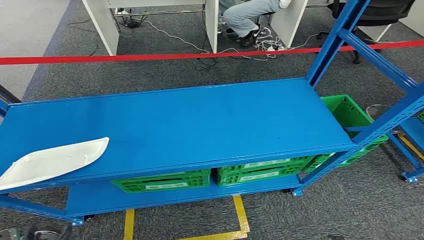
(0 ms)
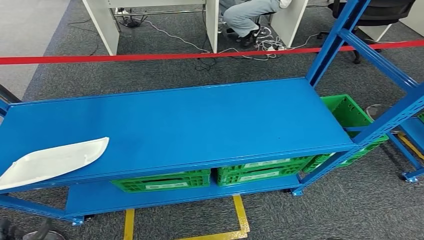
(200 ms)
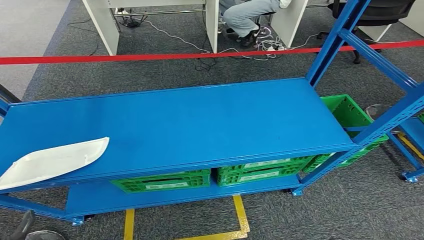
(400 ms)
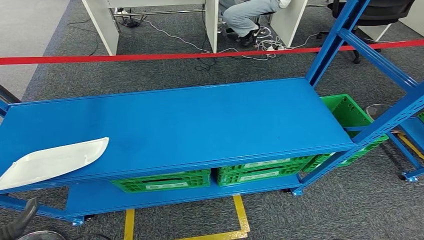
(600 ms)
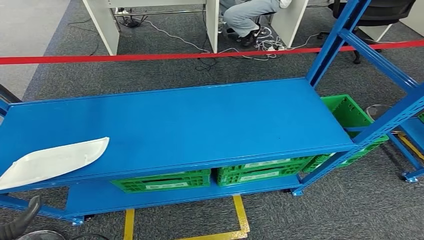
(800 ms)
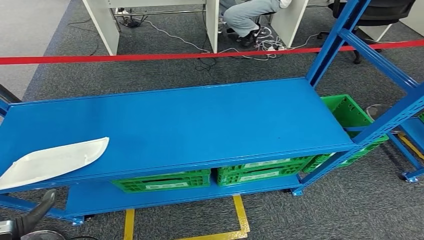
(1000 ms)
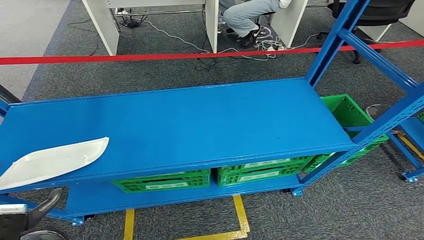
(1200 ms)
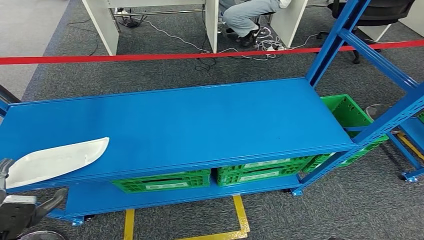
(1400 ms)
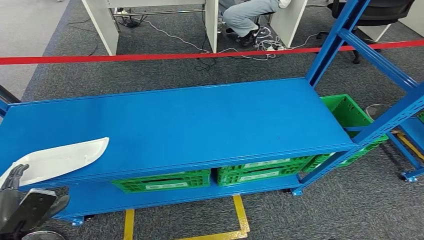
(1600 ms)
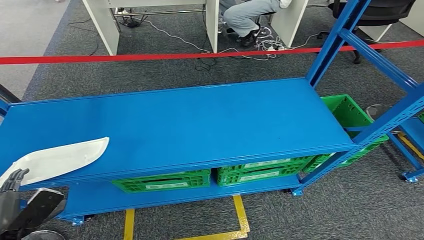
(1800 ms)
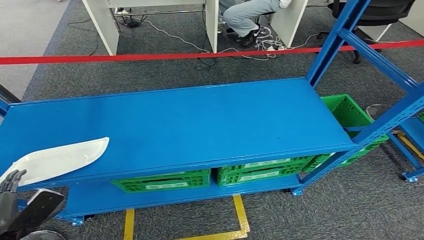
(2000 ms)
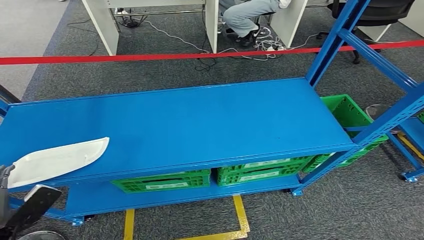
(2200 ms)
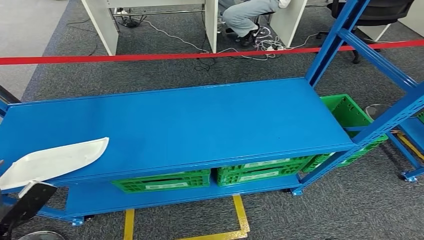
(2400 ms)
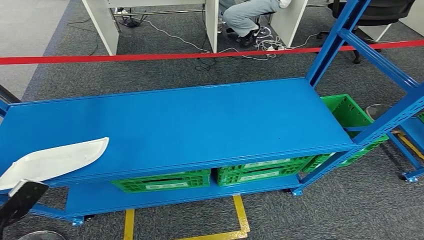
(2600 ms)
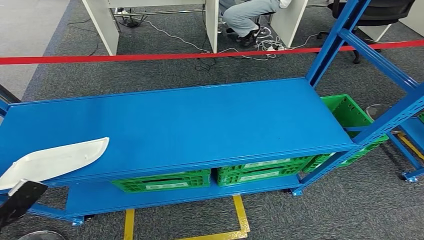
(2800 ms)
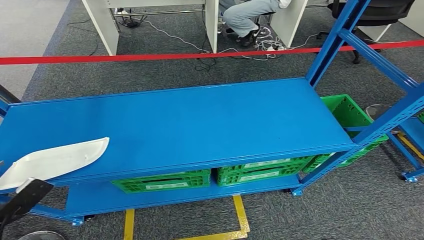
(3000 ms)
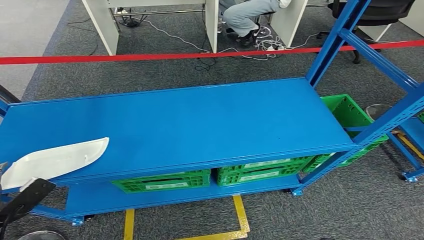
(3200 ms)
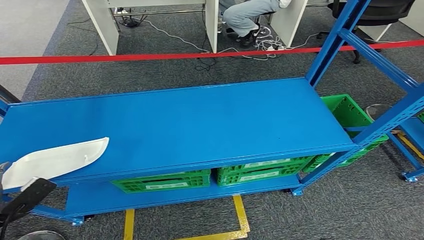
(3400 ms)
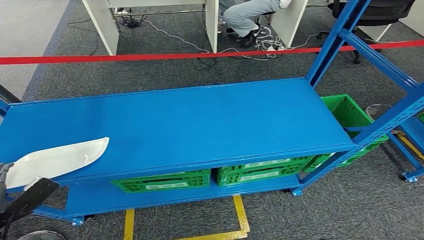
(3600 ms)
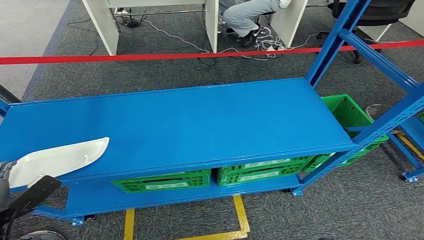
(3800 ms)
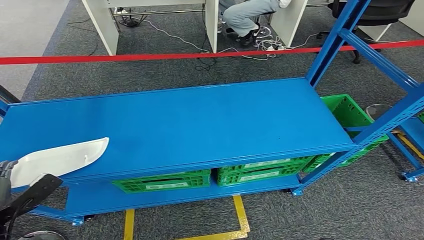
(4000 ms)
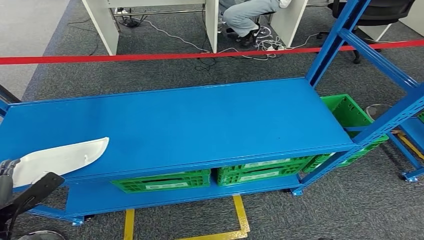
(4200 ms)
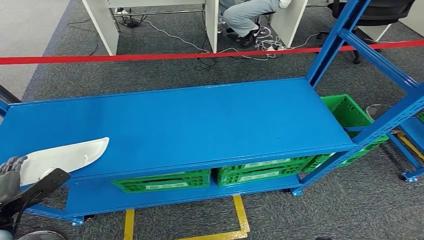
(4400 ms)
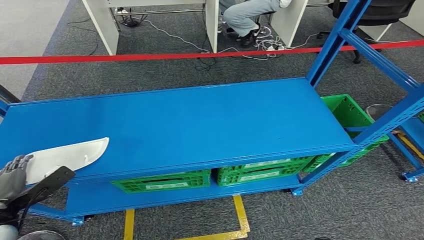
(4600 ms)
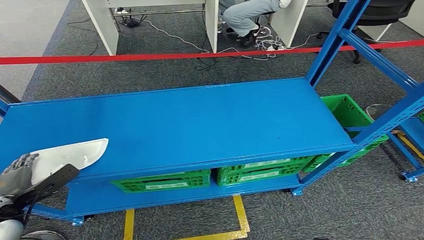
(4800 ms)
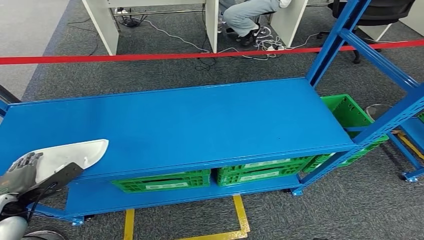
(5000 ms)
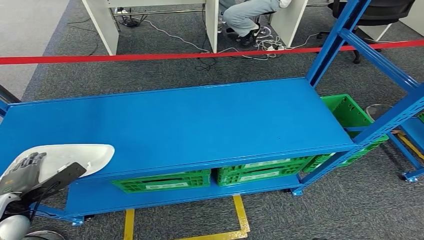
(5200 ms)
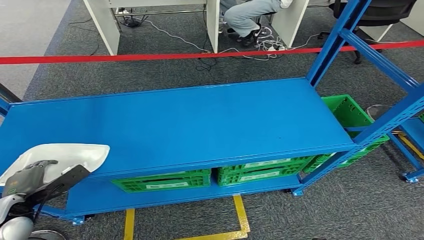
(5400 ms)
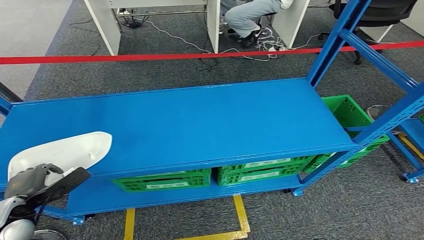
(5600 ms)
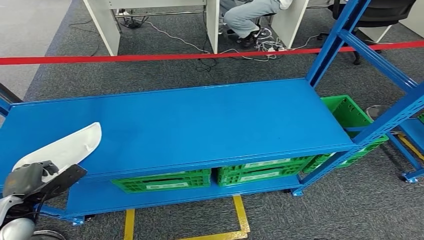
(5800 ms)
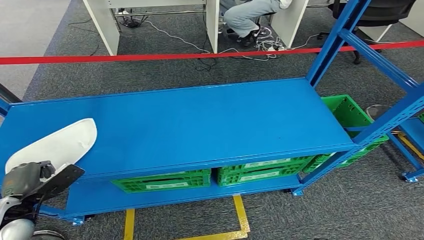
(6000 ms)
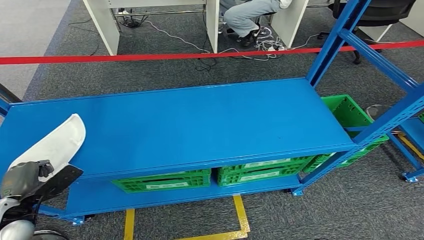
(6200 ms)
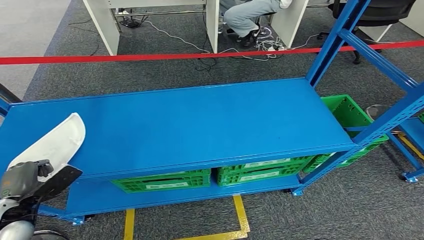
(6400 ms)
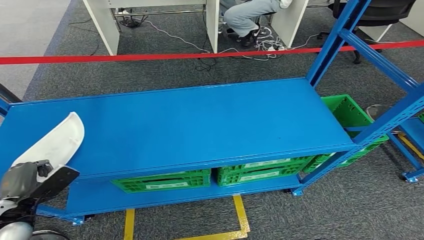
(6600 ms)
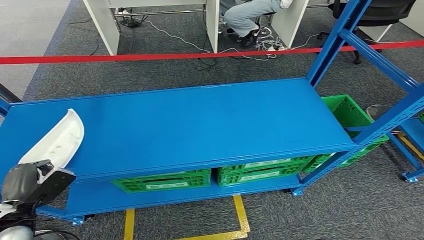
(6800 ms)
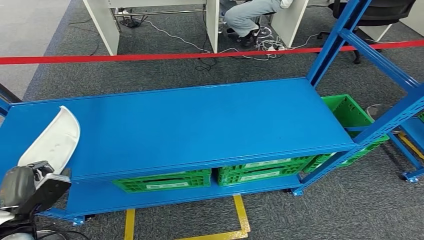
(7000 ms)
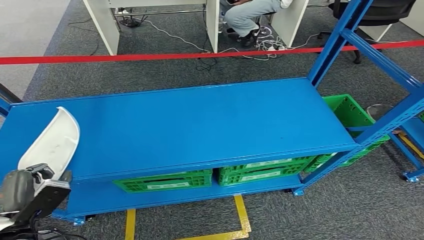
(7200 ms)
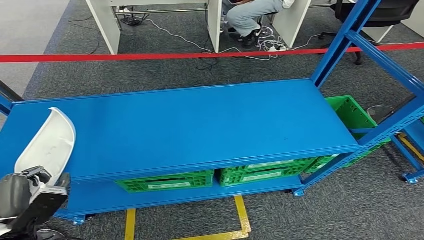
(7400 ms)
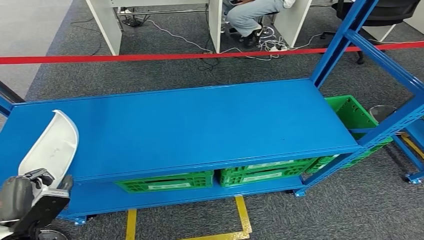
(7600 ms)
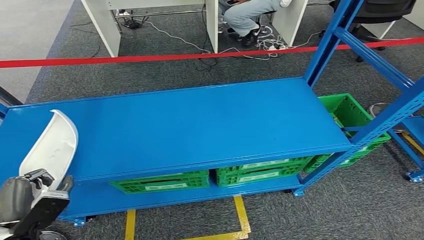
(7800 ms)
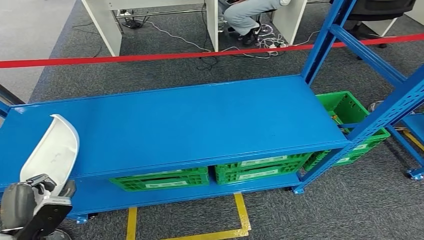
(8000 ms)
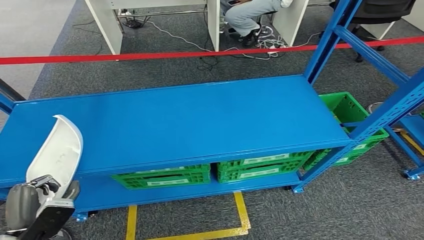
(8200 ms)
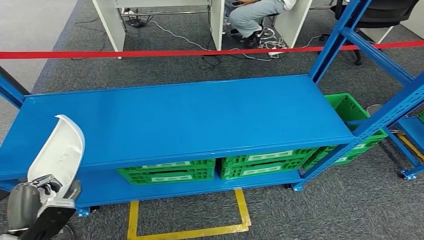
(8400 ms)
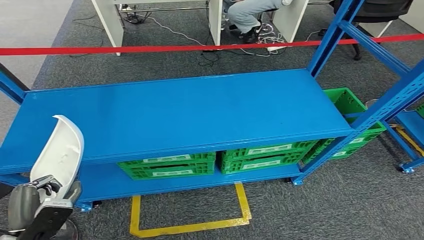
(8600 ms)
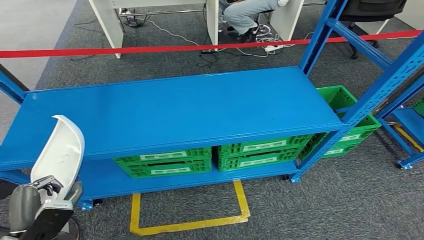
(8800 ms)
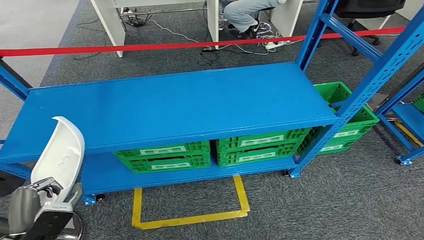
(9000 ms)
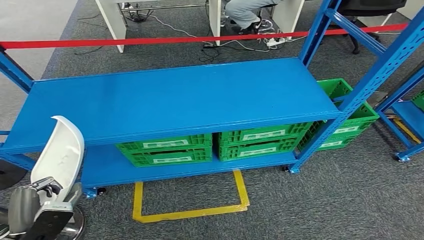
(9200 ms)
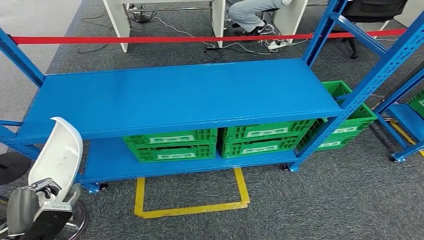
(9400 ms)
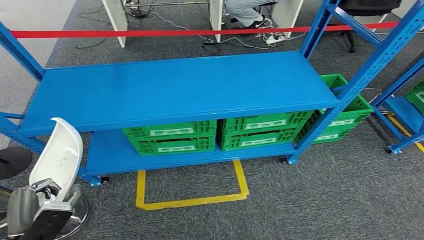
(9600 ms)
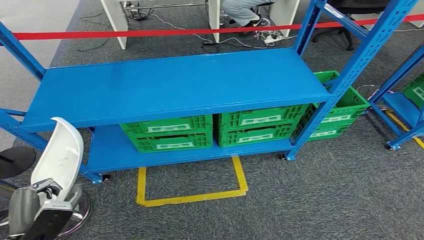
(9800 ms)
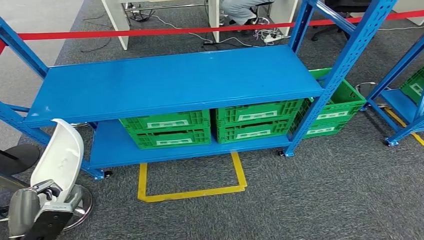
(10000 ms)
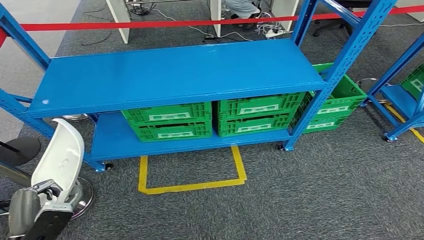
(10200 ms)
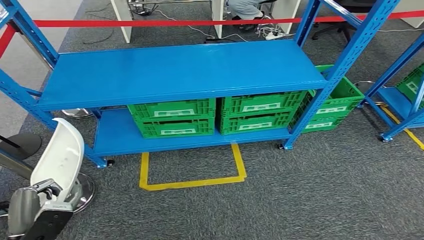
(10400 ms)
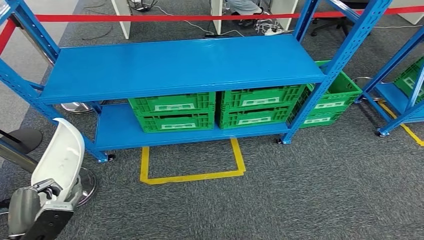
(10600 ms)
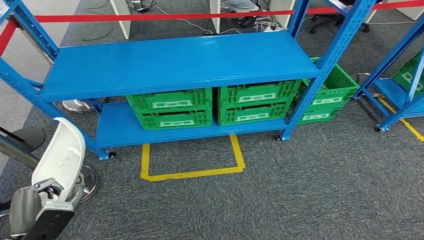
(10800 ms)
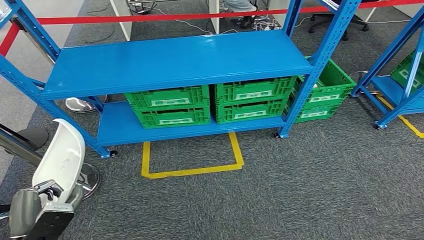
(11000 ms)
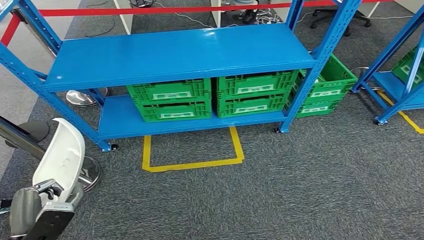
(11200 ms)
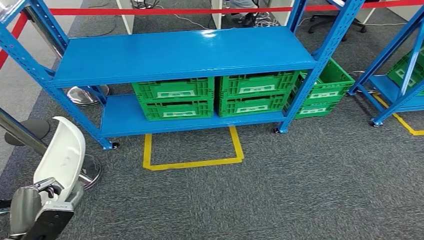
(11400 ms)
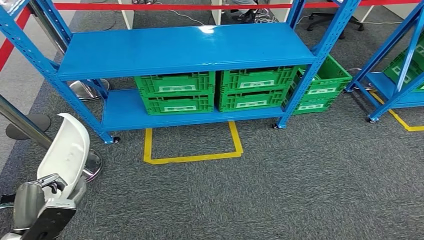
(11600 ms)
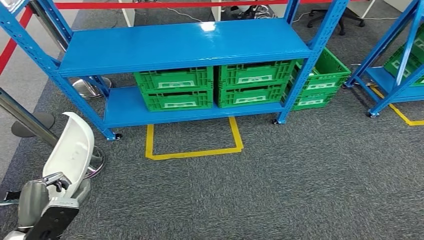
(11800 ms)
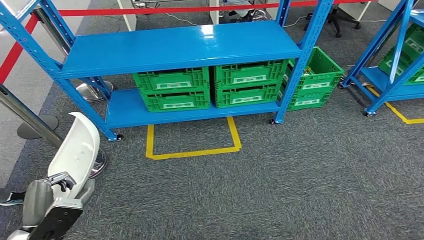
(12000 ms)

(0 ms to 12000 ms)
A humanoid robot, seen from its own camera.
Step, 0 ms - 8800 ms: Pick up the small component from the shelf.
3000 ms - 4400 ms: There are only small adjustments of the hands.
4400 ms - 6000 ms: The hands stay close to where they were, moving slightly.
6000 ms - 7600 ms: The left hand shifts roughly 5 cm backward.

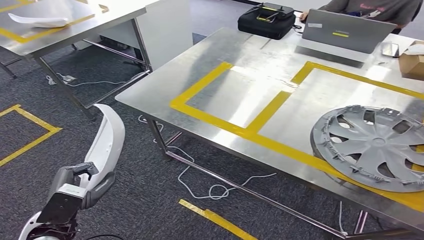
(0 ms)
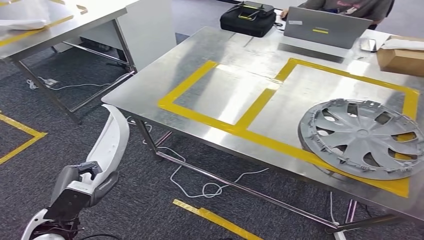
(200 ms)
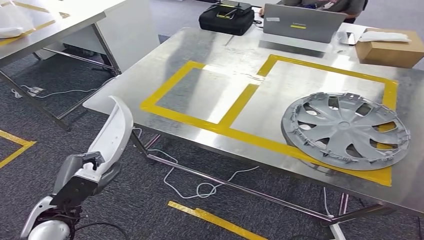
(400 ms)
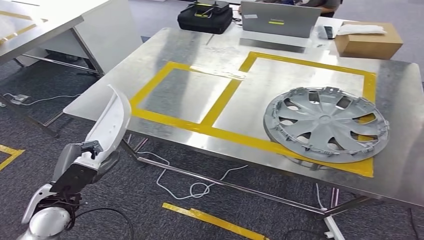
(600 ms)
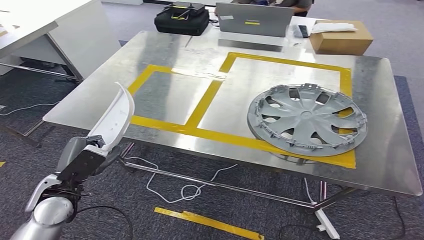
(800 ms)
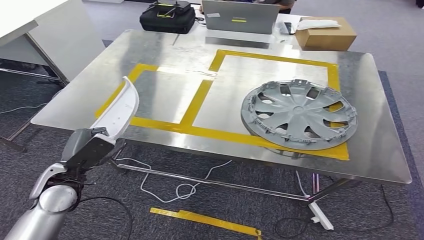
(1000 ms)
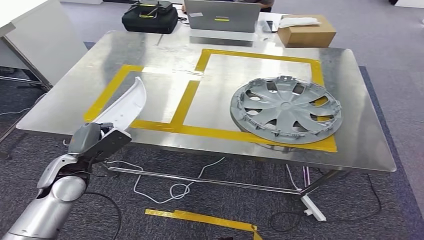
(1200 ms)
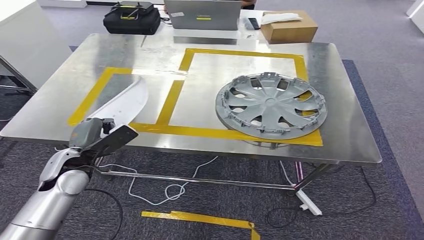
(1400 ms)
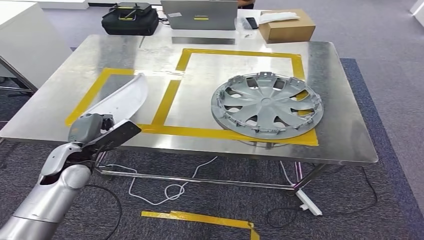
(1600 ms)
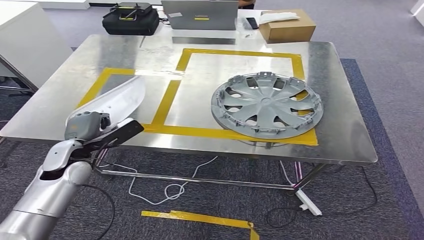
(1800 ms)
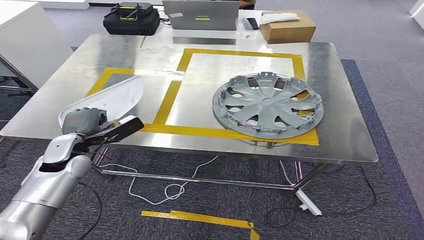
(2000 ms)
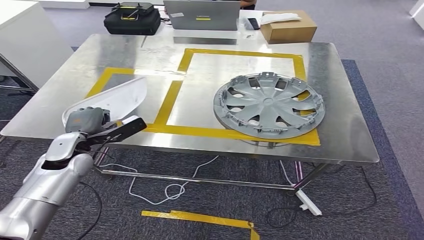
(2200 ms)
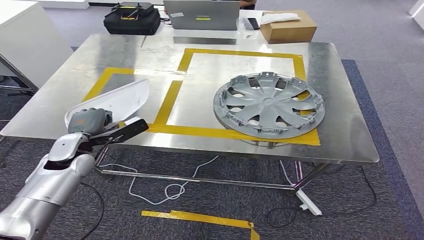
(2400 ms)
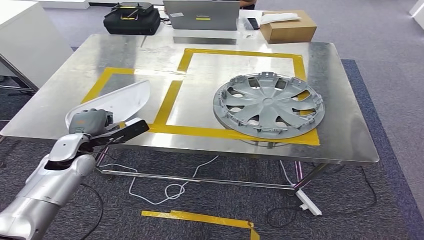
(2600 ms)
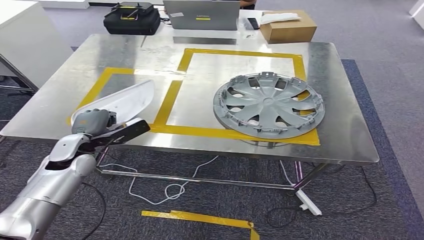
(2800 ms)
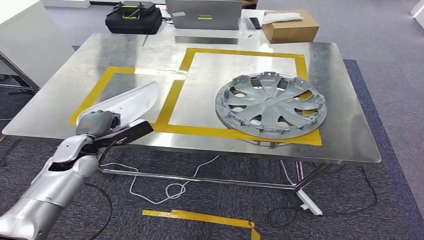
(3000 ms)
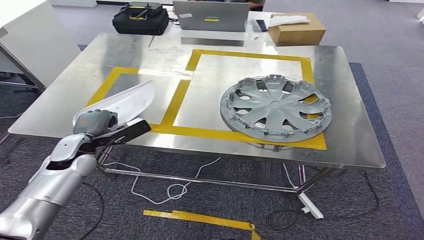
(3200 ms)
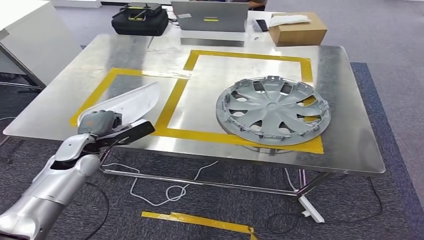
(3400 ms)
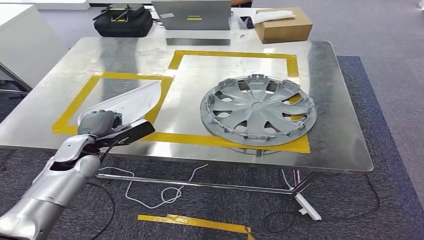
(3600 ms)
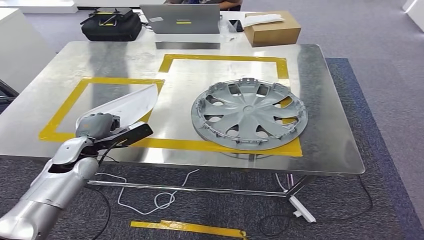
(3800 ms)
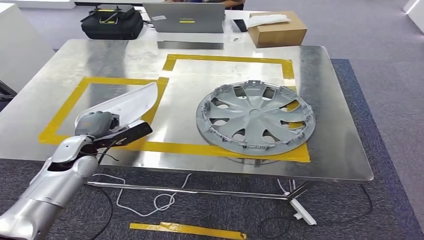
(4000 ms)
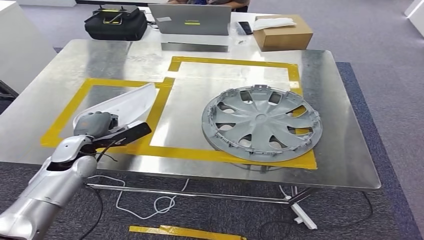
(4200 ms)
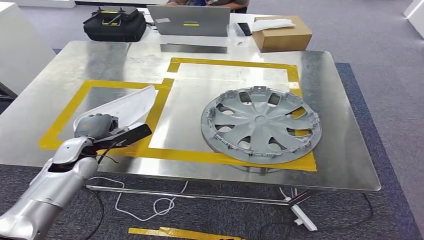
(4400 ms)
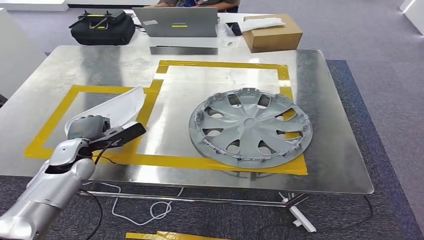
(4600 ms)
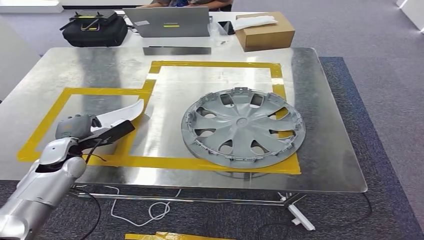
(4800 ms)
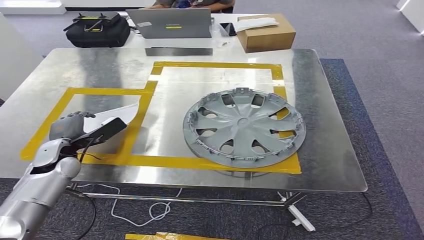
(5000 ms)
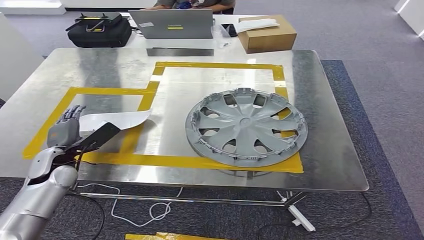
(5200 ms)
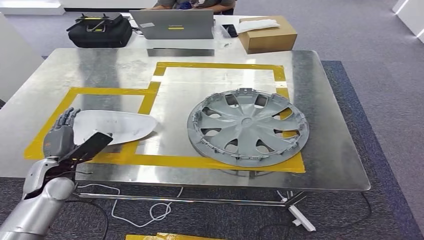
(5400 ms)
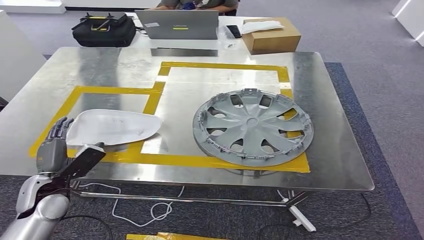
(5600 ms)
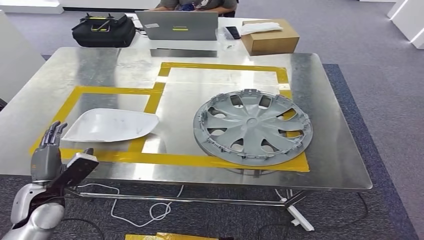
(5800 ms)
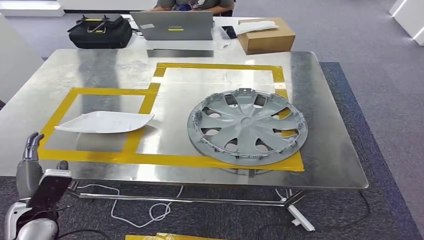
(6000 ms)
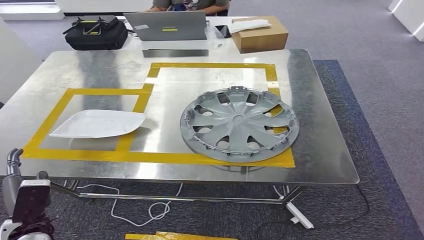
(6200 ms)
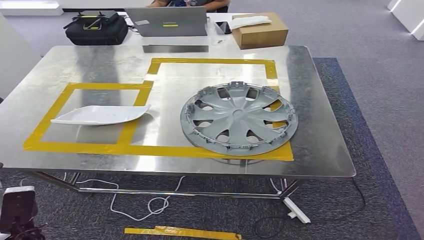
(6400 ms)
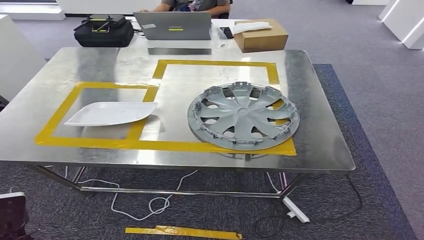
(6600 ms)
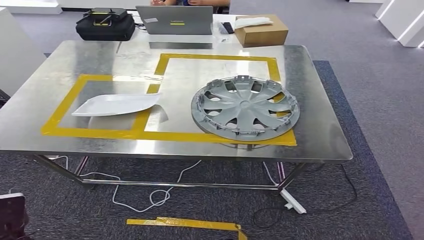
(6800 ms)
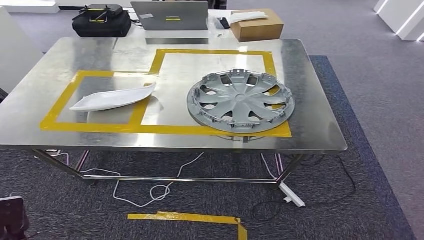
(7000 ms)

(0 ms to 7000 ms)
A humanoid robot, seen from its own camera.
Step, 0 ms - 3000 ms: Bring the small component to the front of the workbench.
1400 ms - 2800 ms: The left hand travels forward by some 5 cm.
